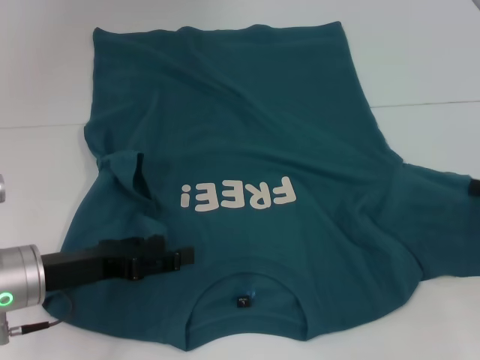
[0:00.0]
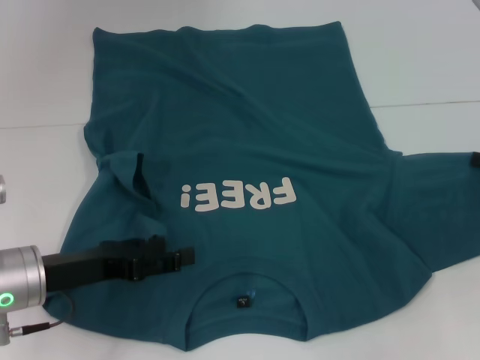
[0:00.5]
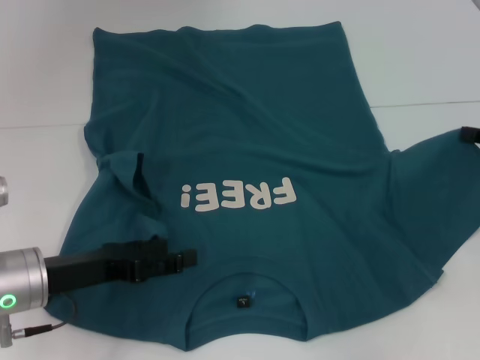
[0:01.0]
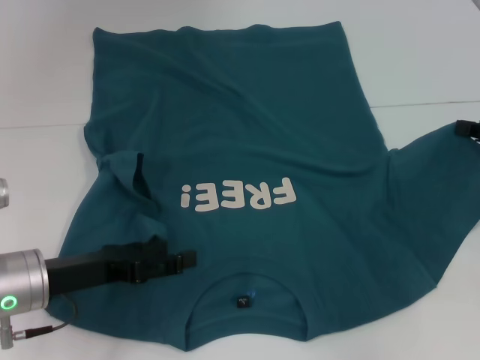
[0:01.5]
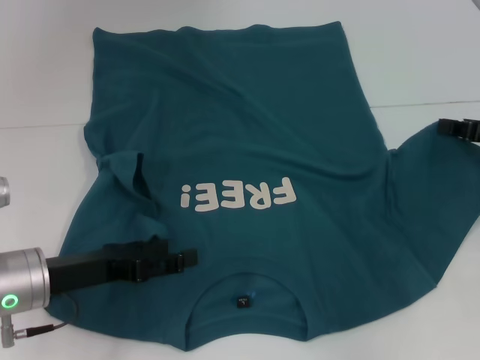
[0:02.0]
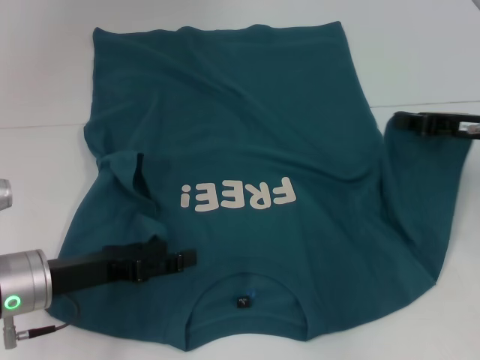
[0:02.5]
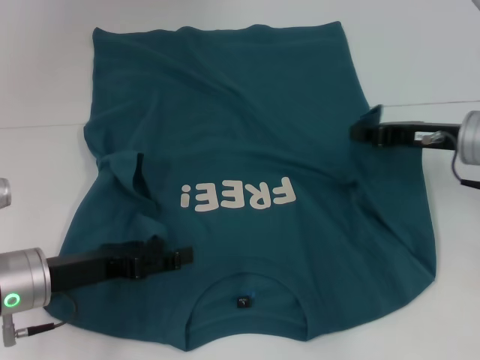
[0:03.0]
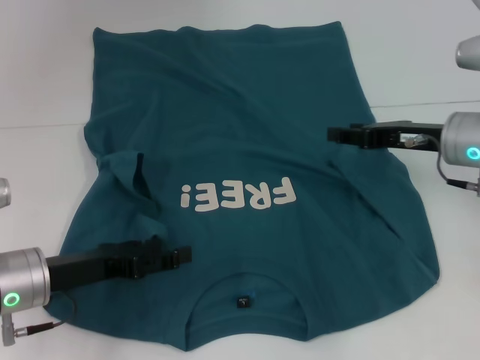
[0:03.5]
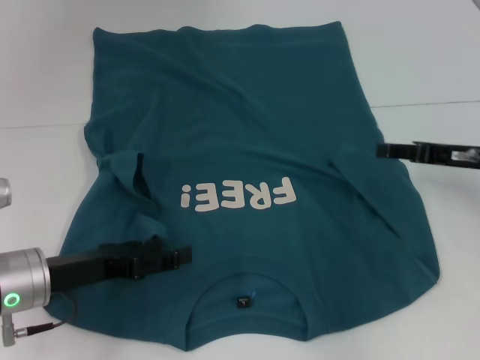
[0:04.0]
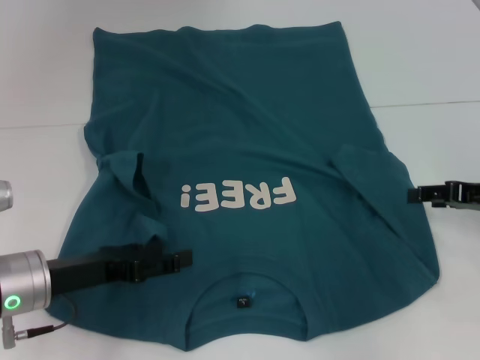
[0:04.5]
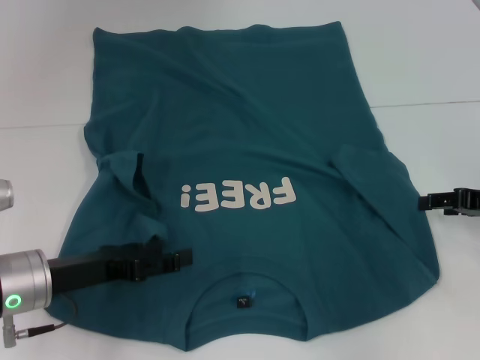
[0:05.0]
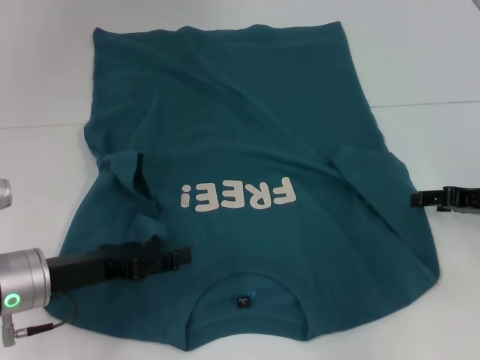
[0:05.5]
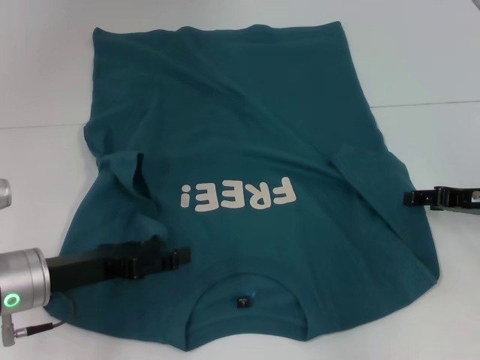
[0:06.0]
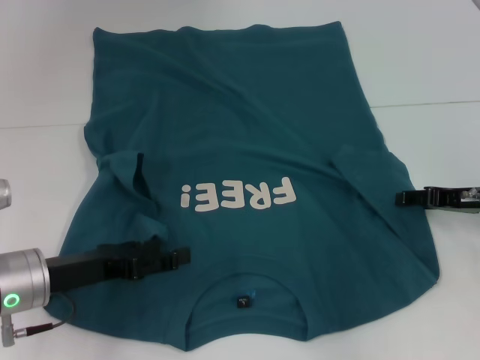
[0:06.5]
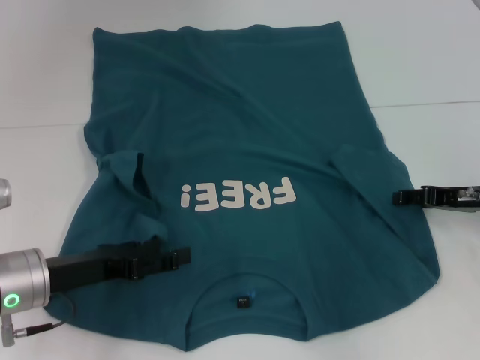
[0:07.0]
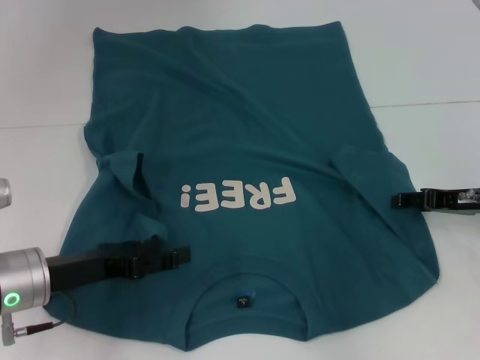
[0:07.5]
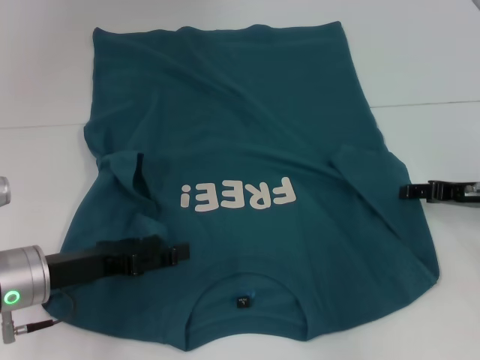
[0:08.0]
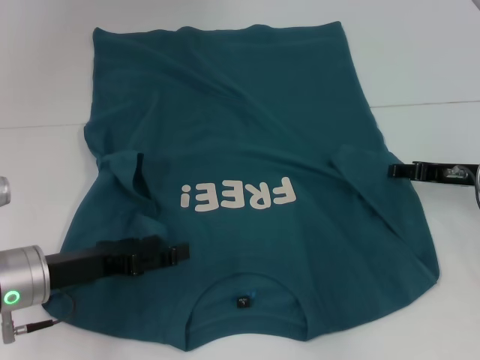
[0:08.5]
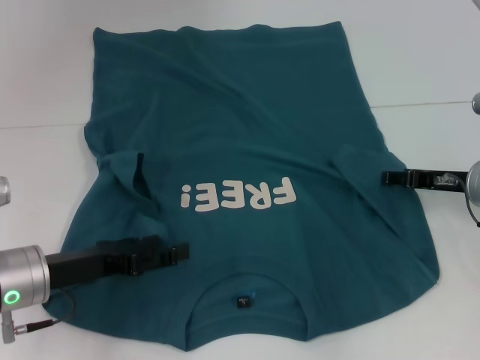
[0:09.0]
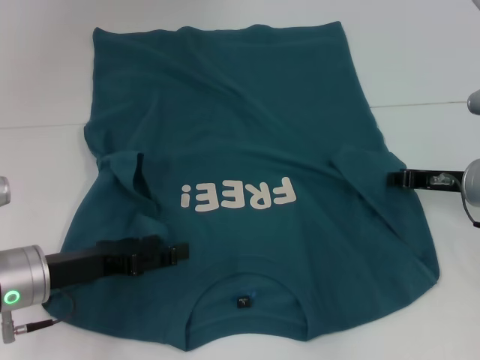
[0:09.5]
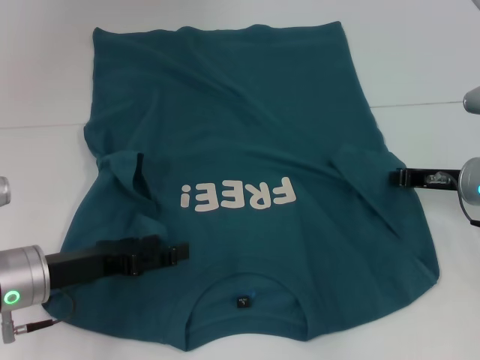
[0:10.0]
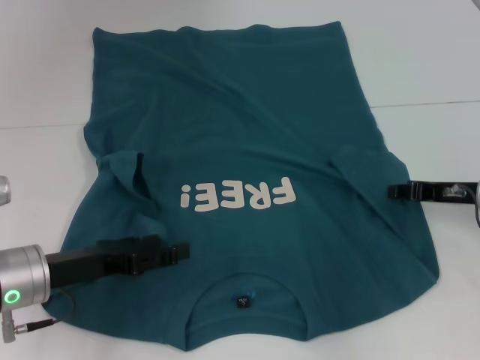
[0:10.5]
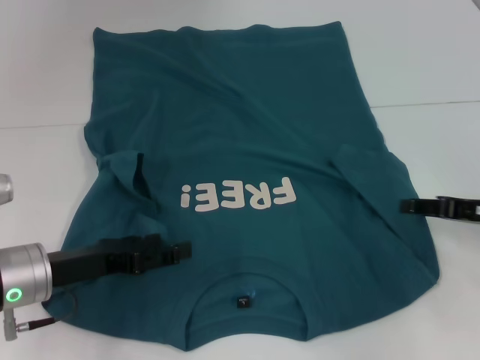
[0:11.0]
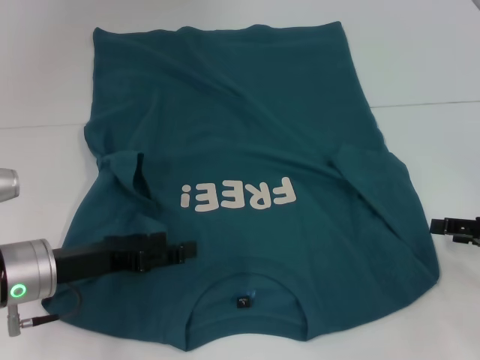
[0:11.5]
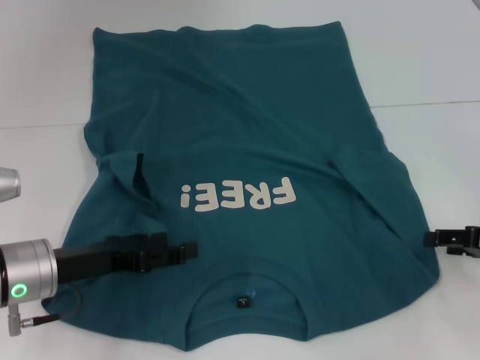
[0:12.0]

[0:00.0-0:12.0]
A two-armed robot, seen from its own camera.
0:00.0 to 0:02.0: The right gripper changes place by approximately 10 cm.
0:02.0 to 0:04.0: The right gripper opens its fingers.
0:04.0 to 0:08.0: The grippers move only a little.
0:08.0 to 0:10.0: The right gripper closes its fingers.
0:10.0 to 0:12.0: The right gripper travels backward and to the right by about 10 cm, and opens up.

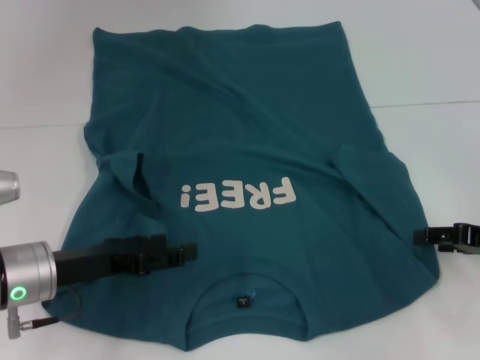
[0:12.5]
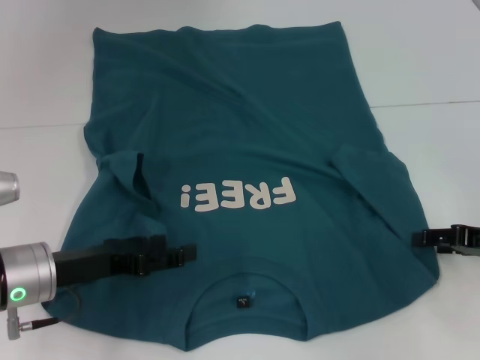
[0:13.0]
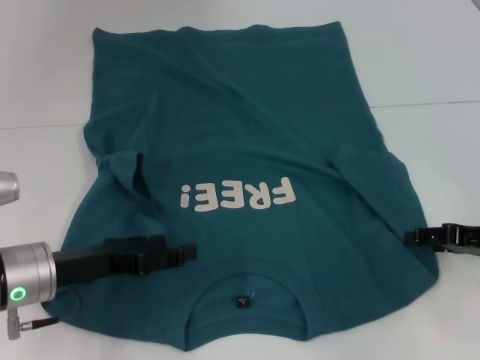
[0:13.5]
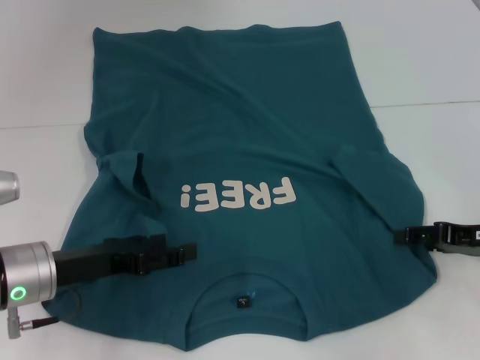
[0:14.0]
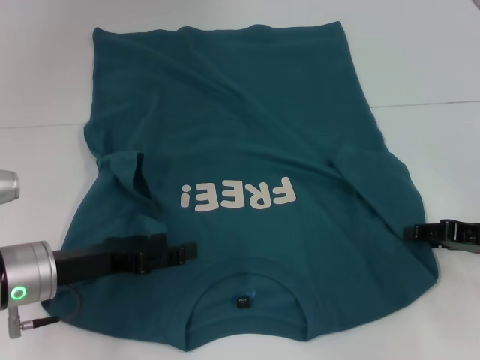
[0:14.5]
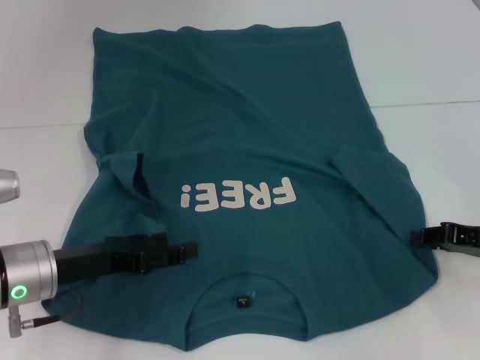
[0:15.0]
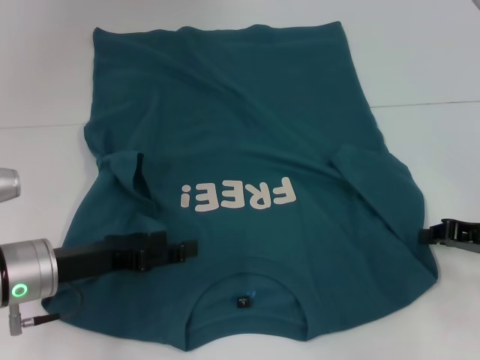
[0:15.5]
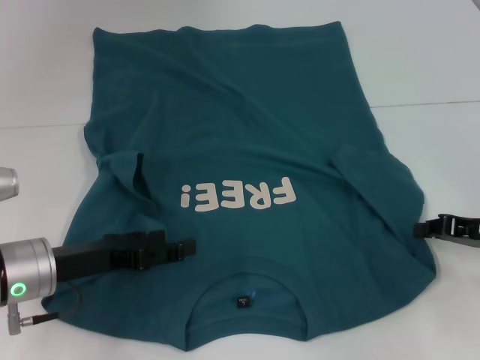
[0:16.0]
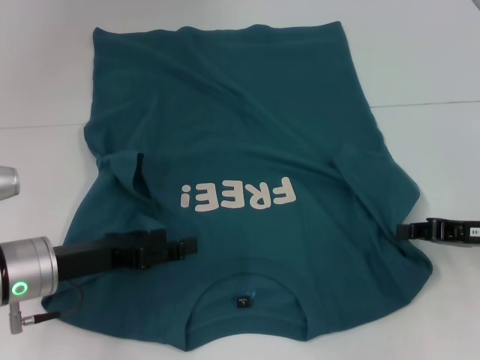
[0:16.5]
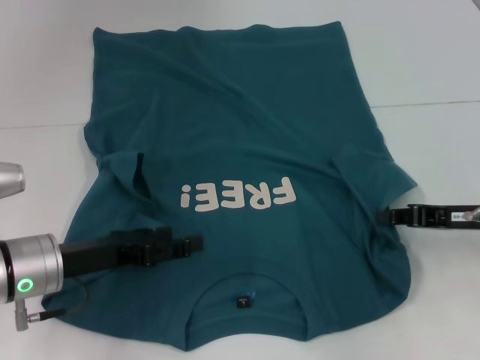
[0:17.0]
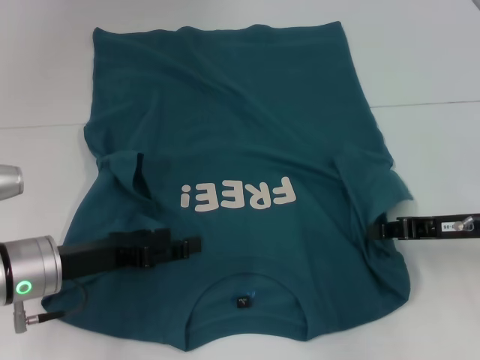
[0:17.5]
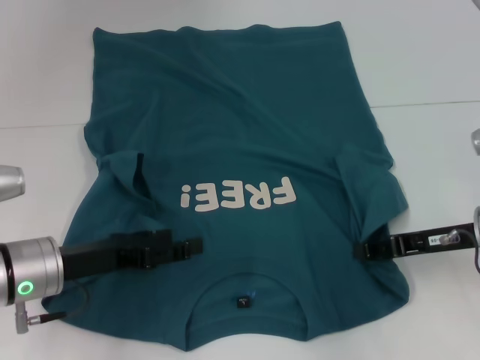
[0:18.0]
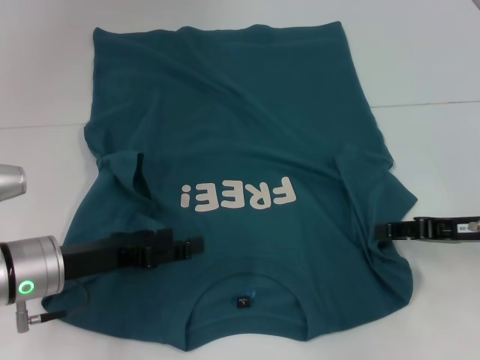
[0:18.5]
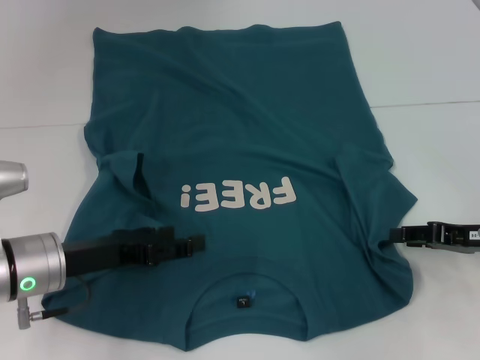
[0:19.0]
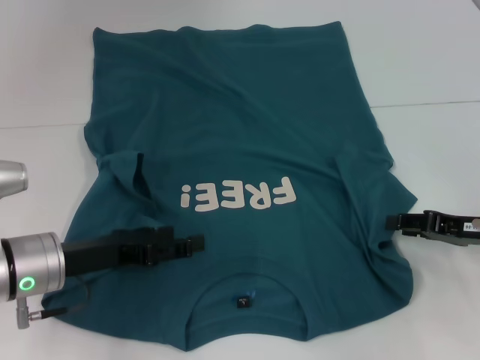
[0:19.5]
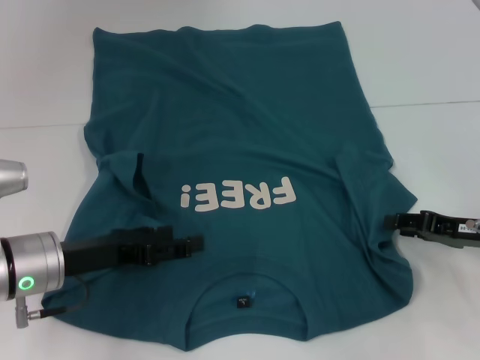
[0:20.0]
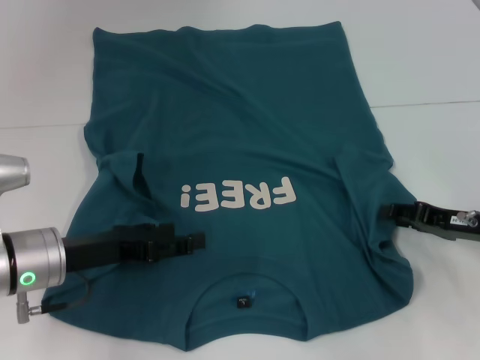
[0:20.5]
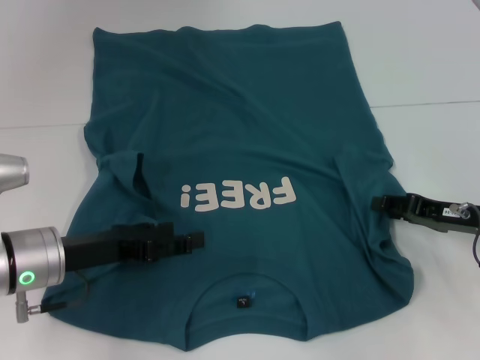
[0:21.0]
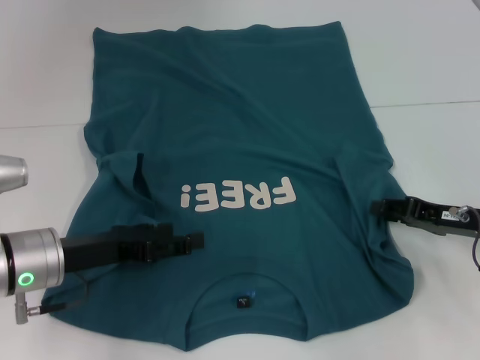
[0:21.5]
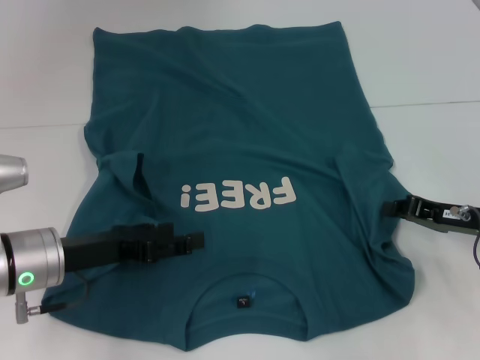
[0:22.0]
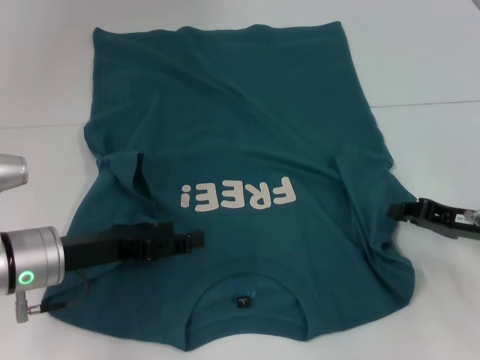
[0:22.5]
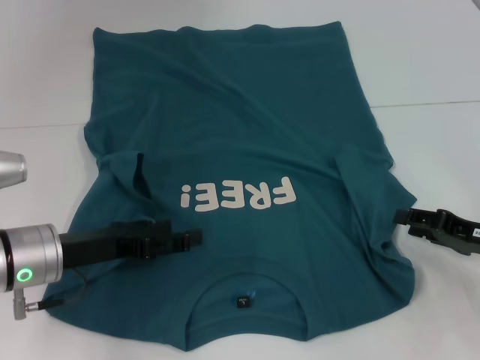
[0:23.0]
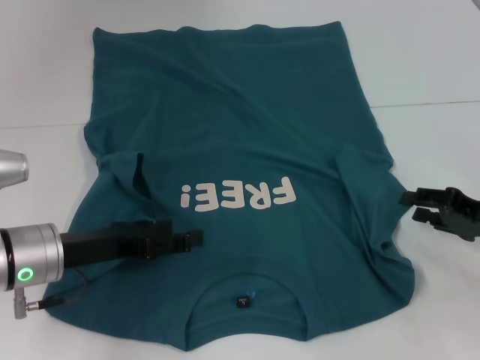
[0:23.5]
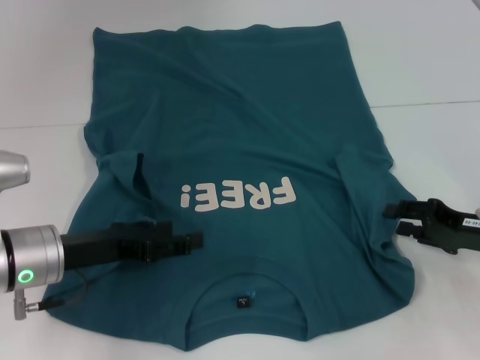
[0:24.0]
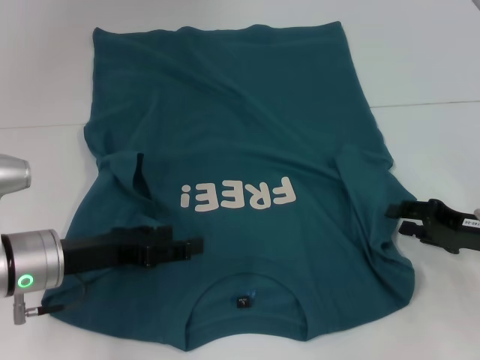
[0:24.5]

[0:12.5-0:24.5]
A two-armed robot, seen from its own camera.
0:14.5 to 0:16.5: The right gripper closes up.
0:16.5 to 0:18.5: The right gripper opens its fingers.
0:18.5 to 0:20.5: The grippers make only small movements.
0:20.5 to 0:22.5: The right gripper closes its fingers.
0:22.5 to 0:24.5: The right gripper opens up.

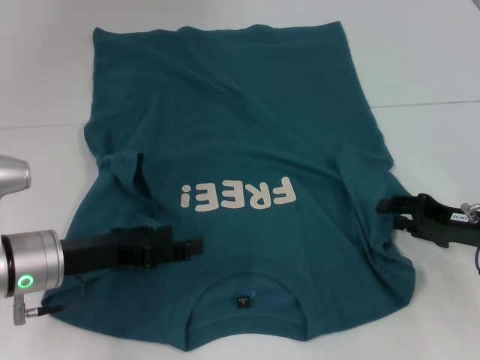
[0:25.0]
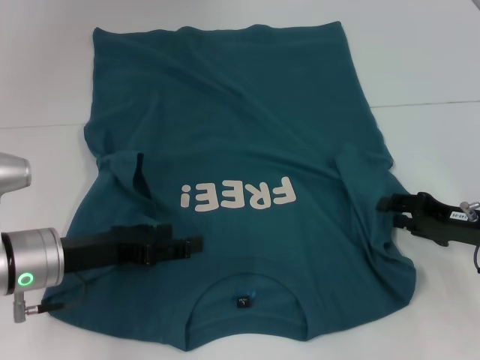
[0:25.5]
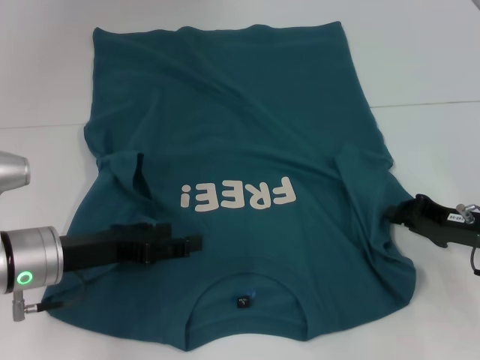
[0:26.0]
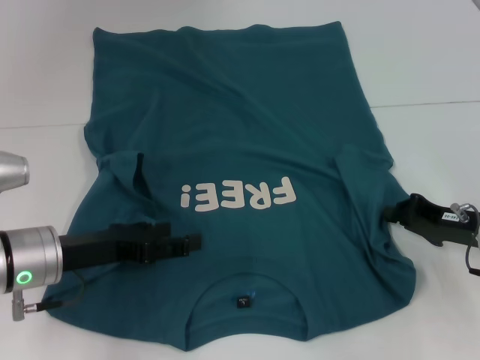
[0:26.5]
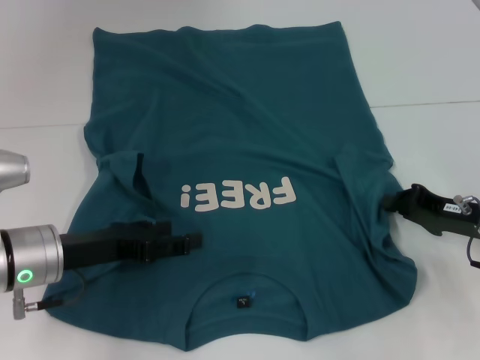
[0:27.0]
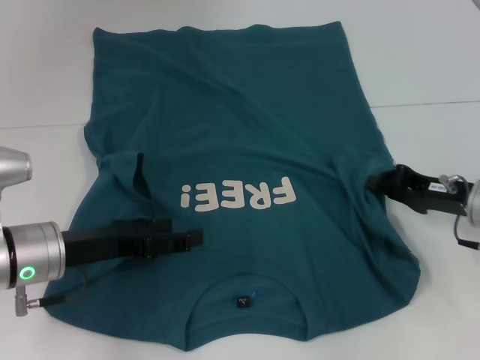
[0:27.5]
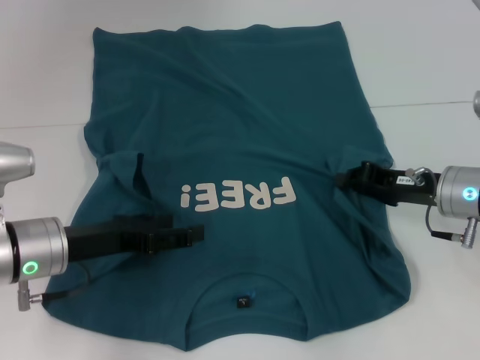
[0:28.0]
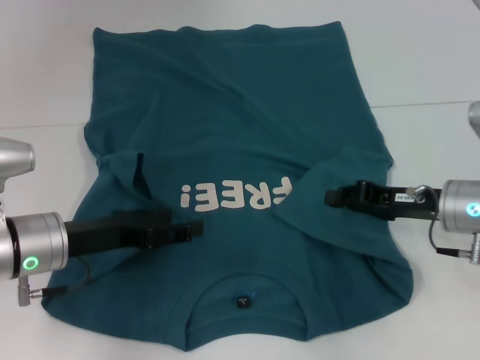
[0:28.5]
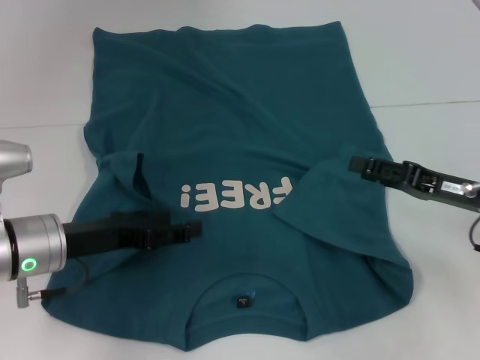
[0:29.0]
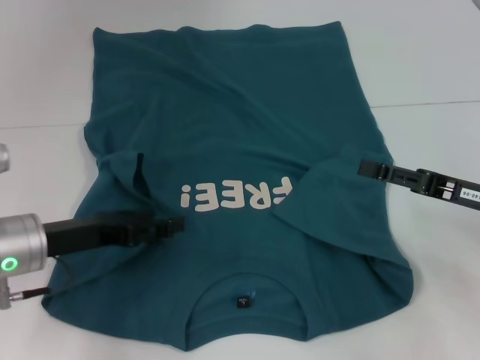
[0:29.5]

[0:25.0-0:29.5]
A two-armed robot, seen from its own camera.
Step, 0:25.0 to 0:29.0: Fold the bottom right sleeve to the right.
0:25.0 to 0:27.0: The right gripper closes.
0:27.0 to 0:29.5: The right gripper opens up.
